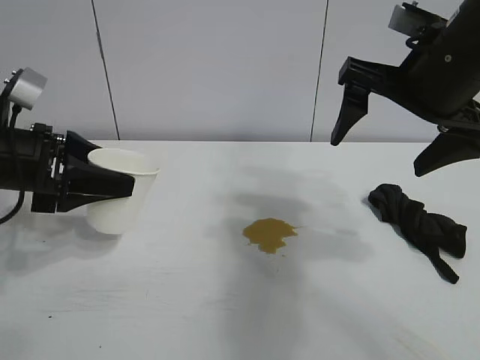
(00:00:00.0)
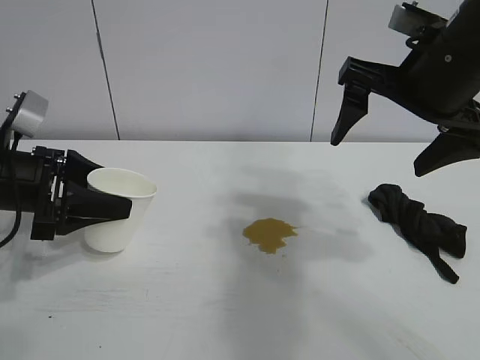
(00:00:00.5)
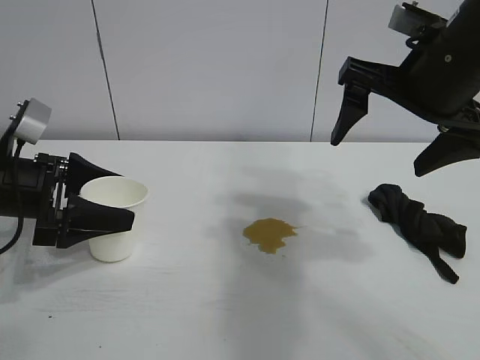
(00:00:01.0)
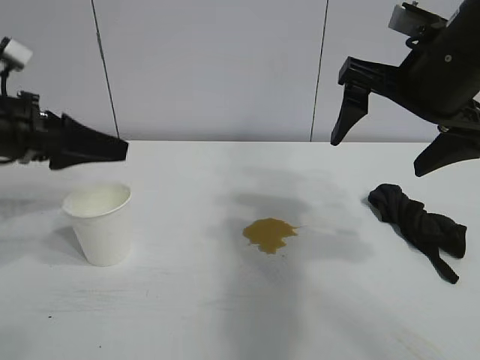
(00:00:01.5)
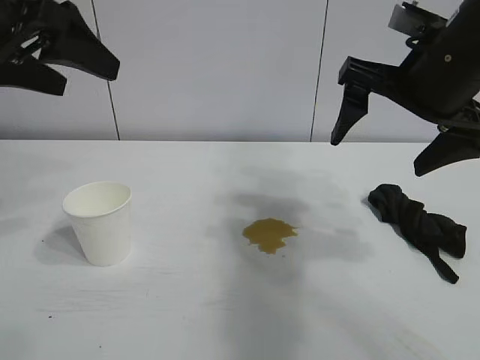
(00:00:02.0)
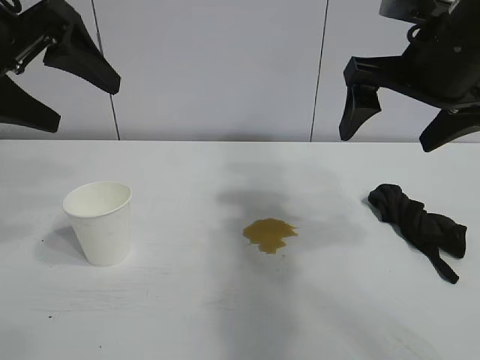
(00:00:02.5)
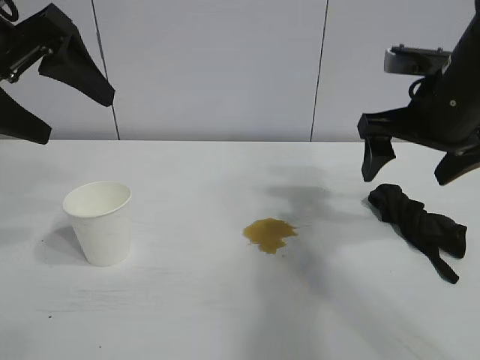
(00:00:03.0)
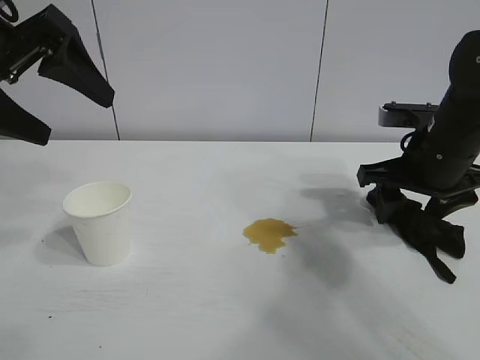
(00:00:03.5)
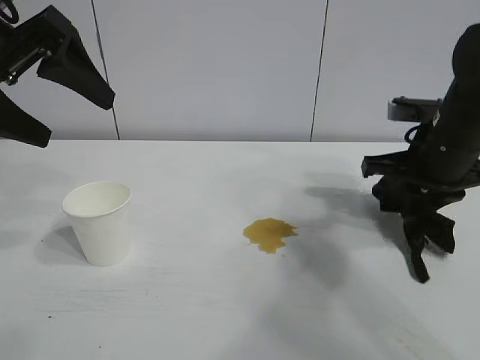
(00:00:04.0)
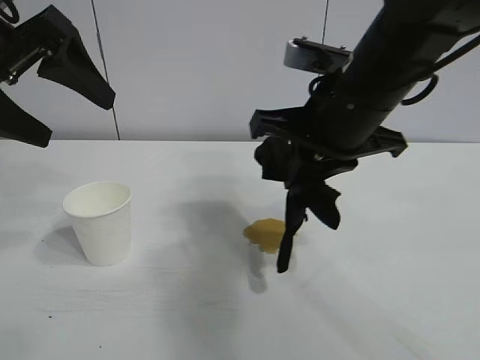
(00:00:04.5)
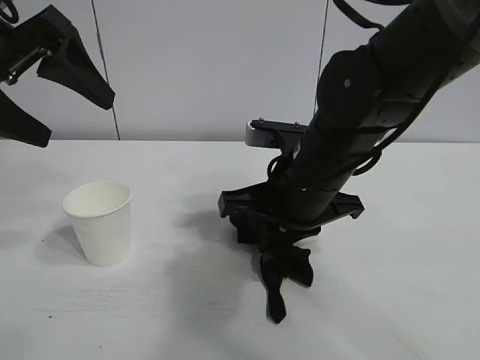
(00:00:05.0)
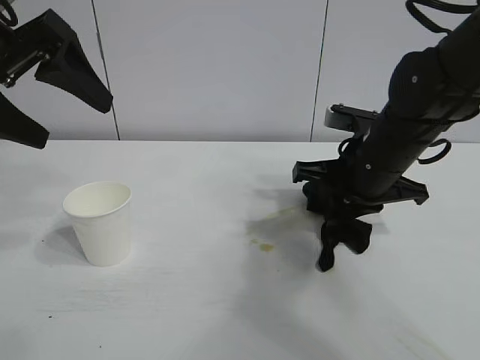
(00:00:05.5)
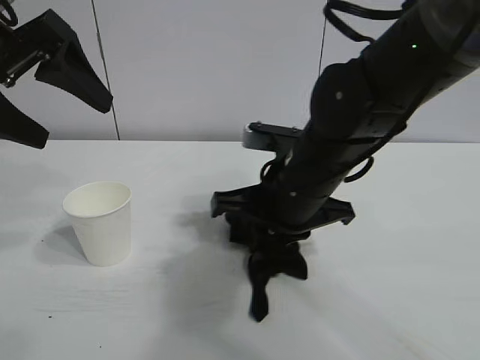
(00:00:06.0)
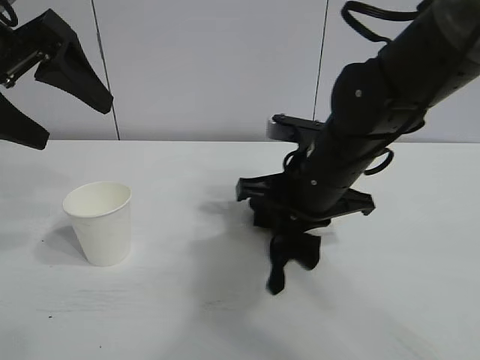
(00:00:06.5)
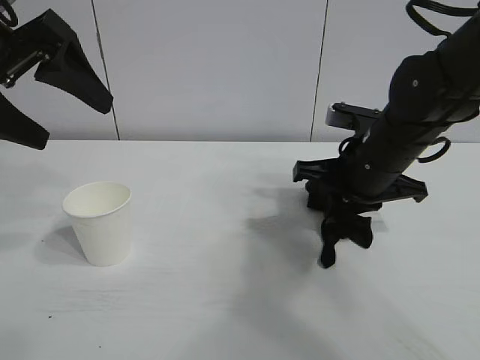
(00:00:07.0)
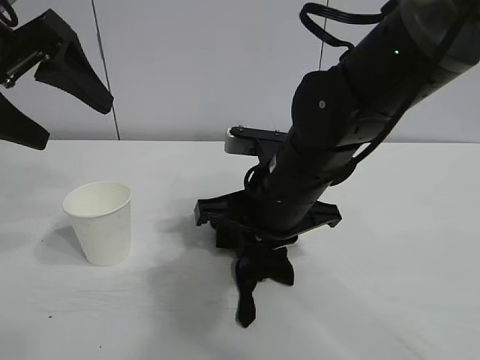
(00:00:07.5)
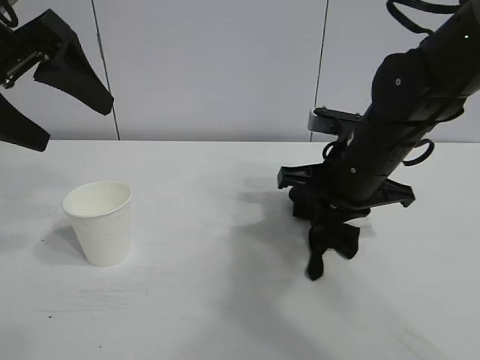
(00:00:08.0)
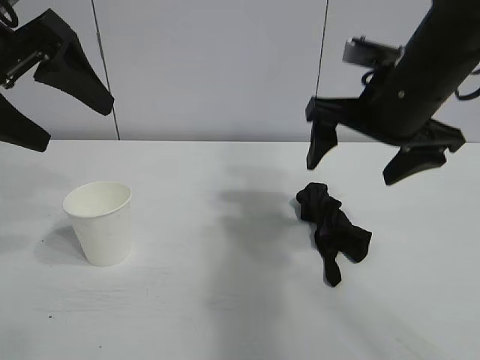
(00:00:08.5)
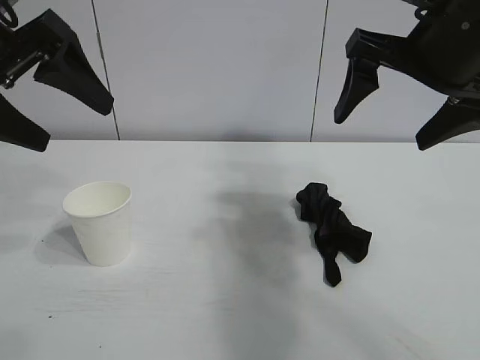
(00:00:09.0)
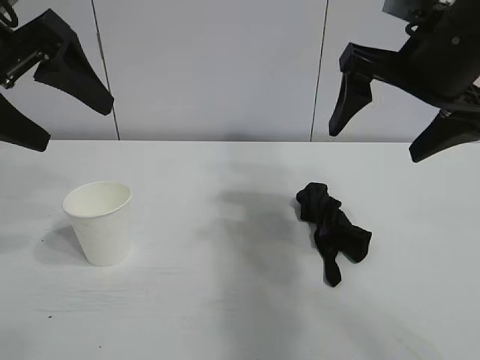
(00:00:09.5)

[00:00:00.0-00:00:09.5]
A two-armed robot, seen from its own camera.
Task of the whole recording: the left gripper pick up the fallen cup and place it upright, the right gripper grasp the black rag and wipe the stain on the table, the right gripper put the black rag back in its original position.
Step, 00:00:01.5 to 00:00:03.5: Grasp the rag with right gripper.
Step, 00:00:04.0 to 00:00:08.0: Wipe the stains off the table with the rag with right gripper.

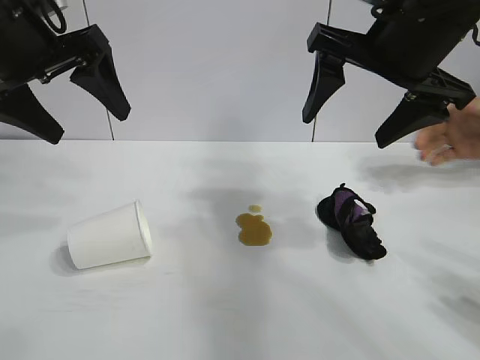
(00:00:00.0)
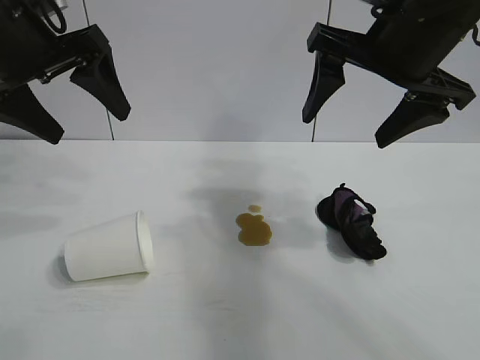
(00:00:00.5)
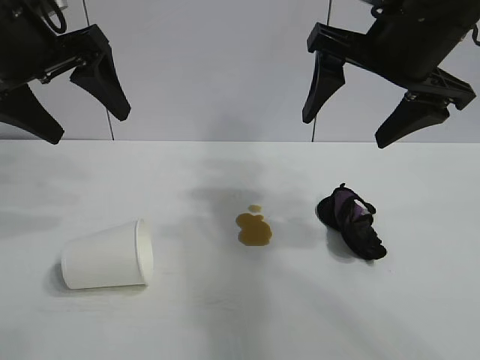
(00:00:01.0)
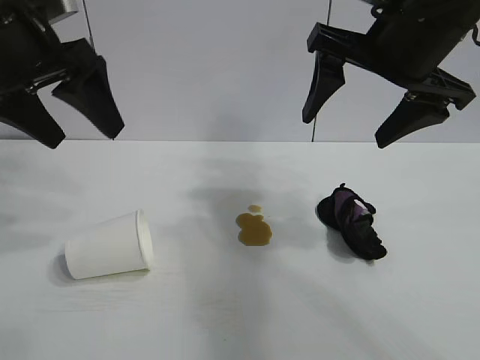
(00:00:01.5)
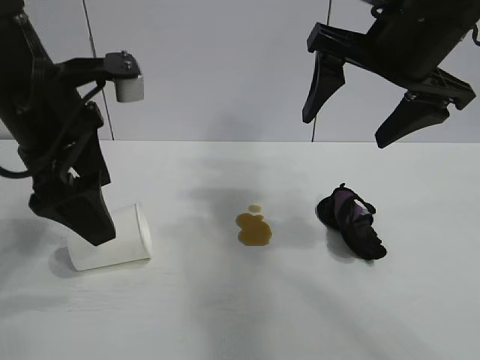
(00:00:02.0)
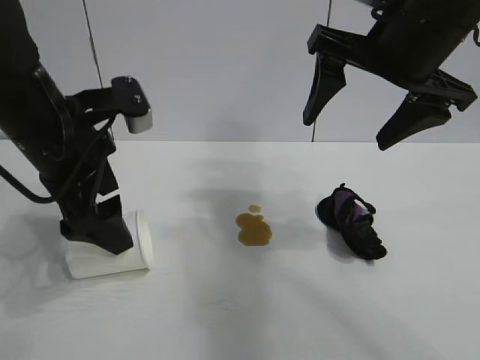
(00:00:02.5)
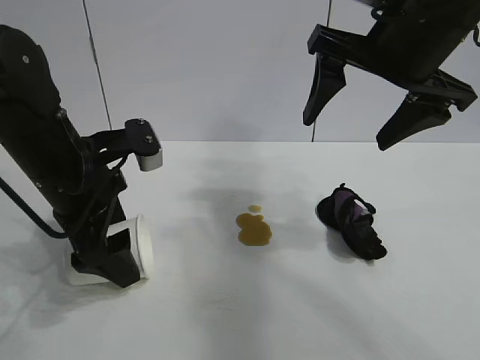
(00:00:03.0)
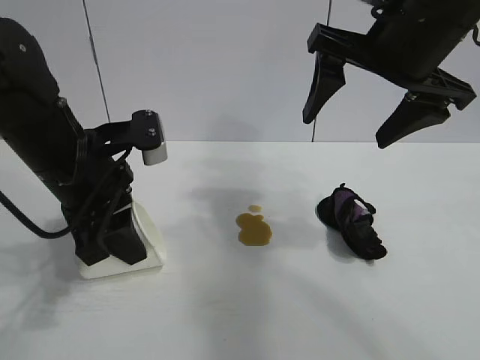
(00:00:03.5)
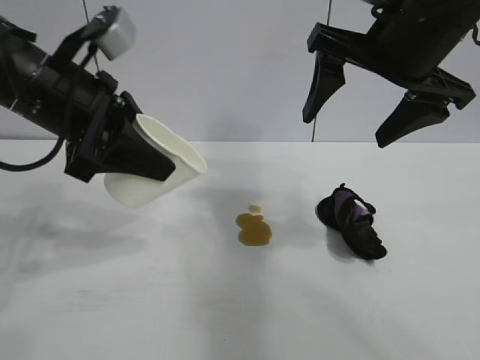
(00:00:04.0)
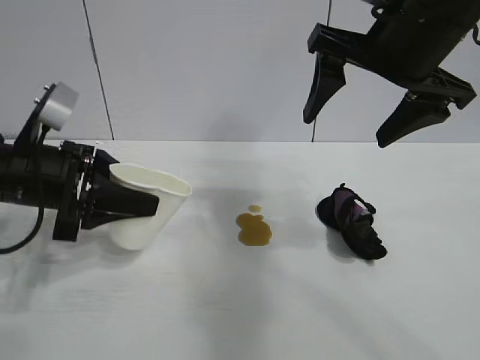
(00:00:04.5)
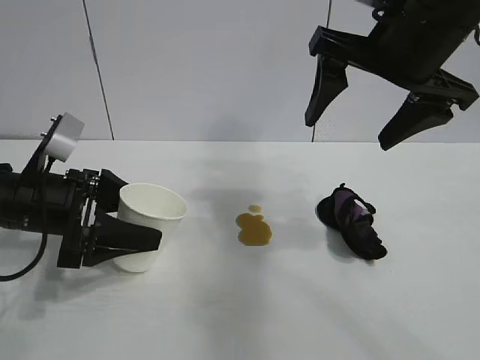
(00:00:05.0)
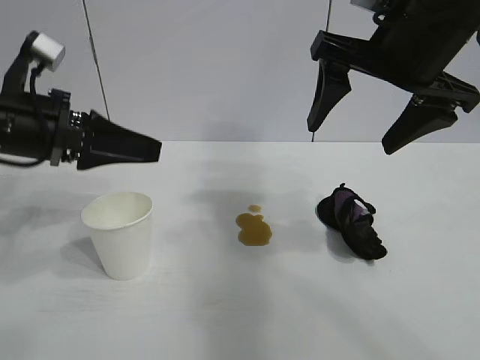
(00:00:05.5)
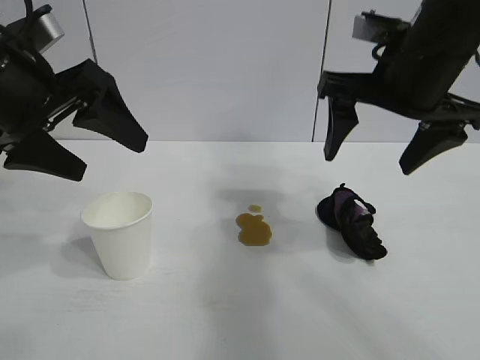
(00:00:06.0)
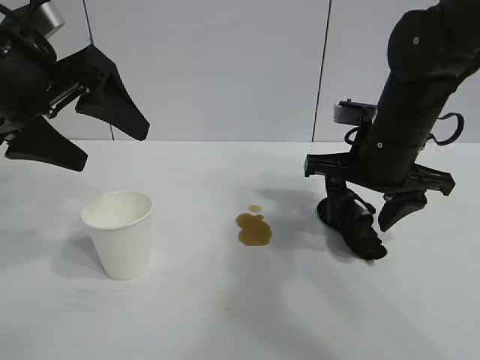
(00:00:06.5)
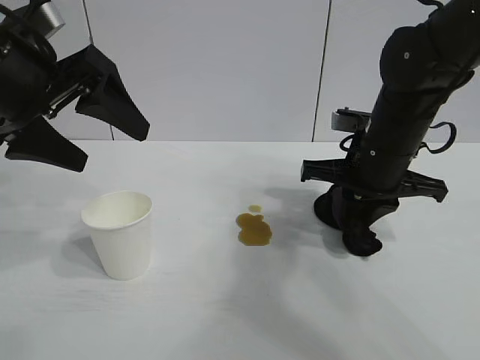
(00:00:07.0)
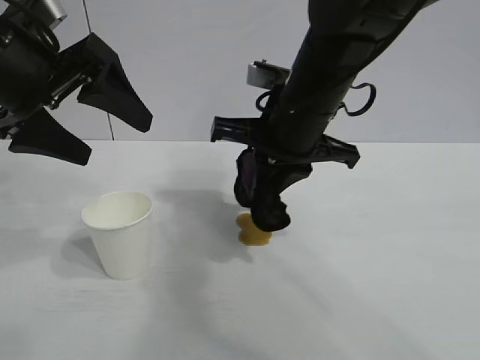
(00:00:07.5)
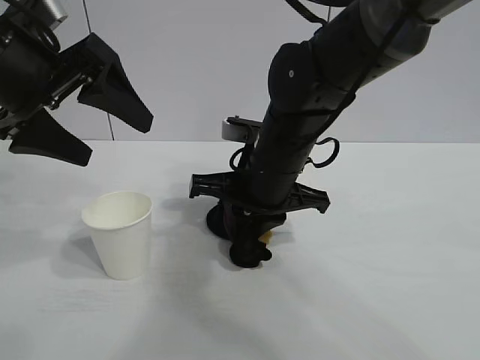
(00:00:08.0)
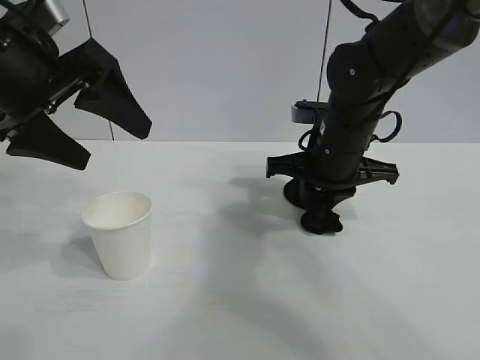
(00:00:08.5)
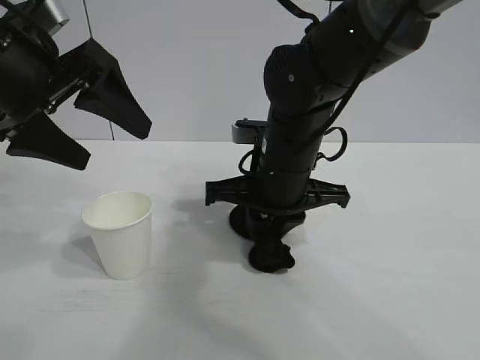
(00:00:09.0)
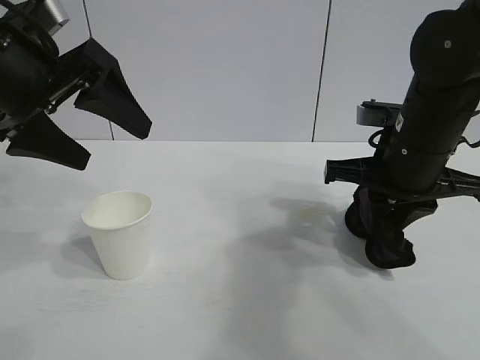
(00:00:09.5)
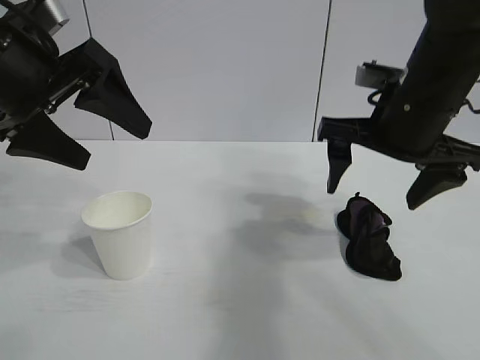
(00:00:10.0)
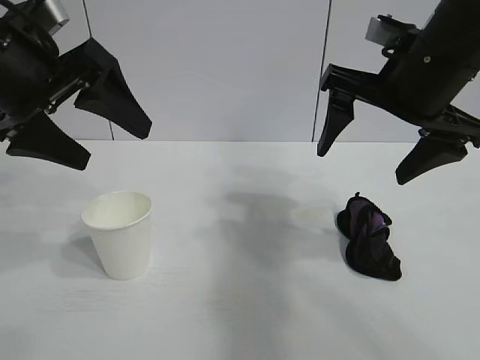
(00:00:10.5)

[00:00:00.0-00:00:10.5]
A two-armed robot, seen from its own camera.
Task of the whole recording: the left gripper pick up the fallen cup and place it upright, the right gripper grasp the black rag and wipe the stain on the table, the right gripper put the black rag back in its original position.
Step, 00:00:01.5 to 00:00:03.0: Grasp the paper cup with left gripper.
Step, 00:00:03.5 to 00:00:05.0: Stand the paper cup upright with left gripper.
Step, 00:00:05.5 to 00:00:06.5: Grasp the rag with right gripper.
Step, 00:00:07.0 to 00:00:09.0: Wipe the stains off the table with the rag with right gripper.
